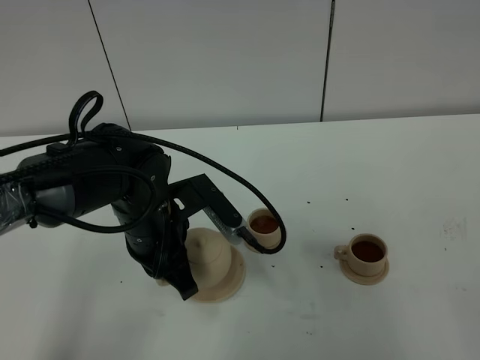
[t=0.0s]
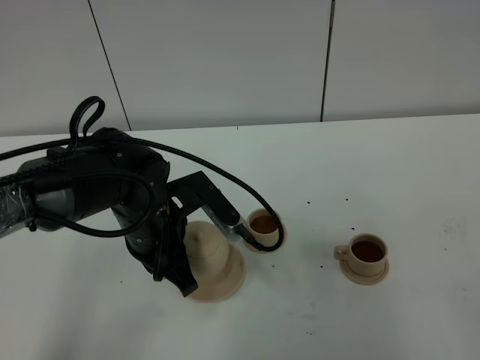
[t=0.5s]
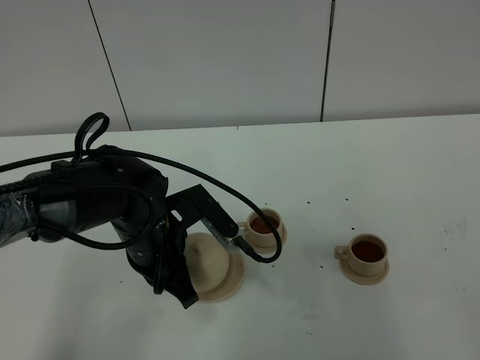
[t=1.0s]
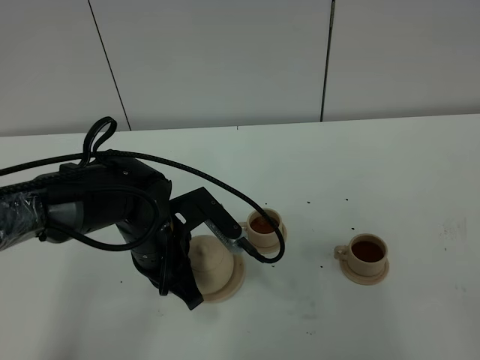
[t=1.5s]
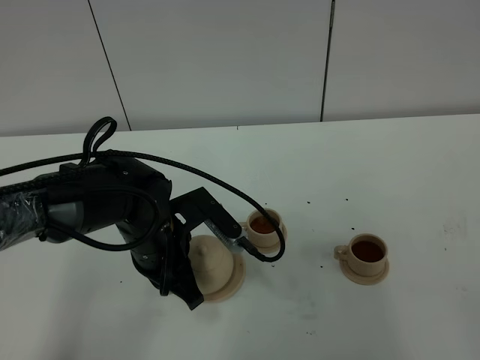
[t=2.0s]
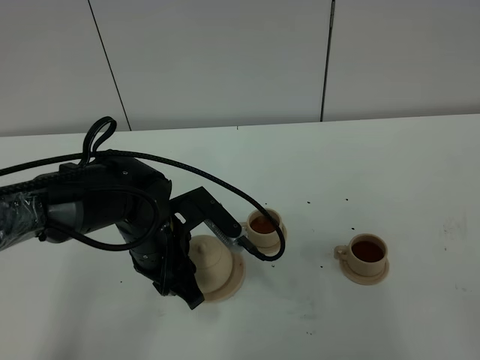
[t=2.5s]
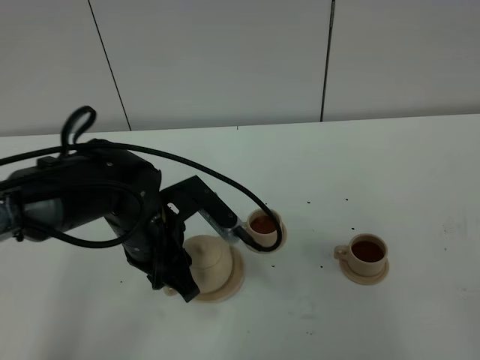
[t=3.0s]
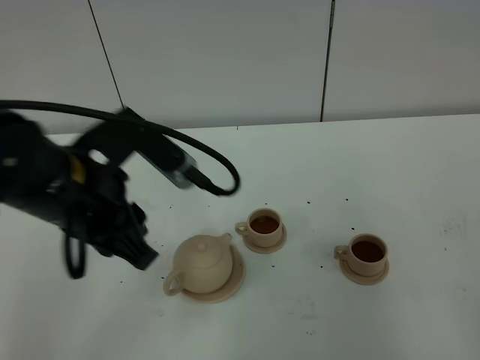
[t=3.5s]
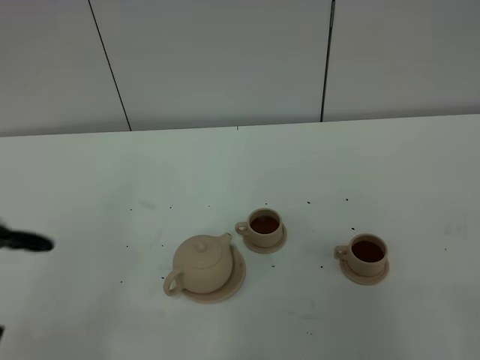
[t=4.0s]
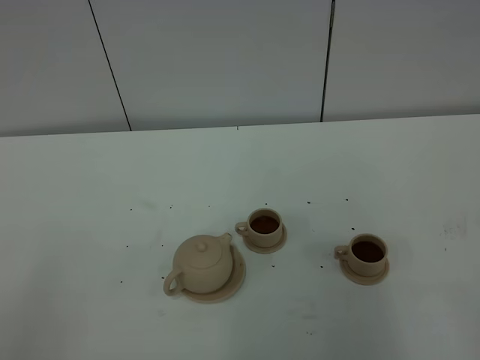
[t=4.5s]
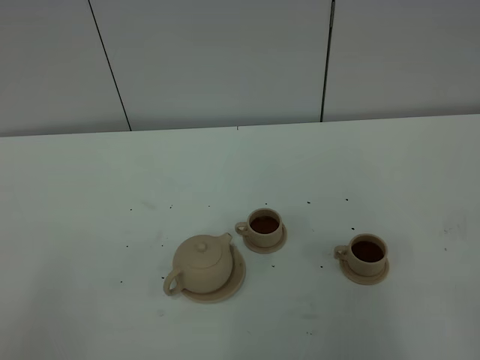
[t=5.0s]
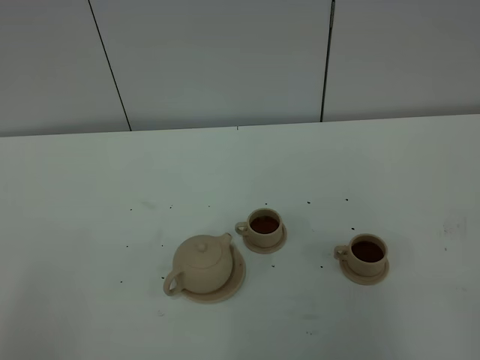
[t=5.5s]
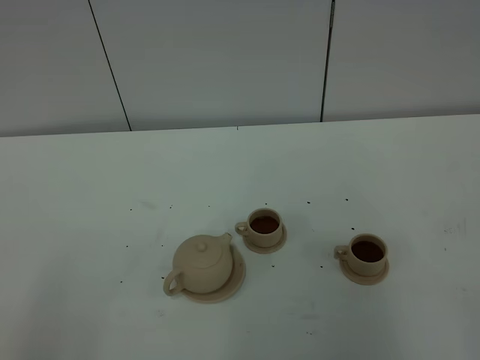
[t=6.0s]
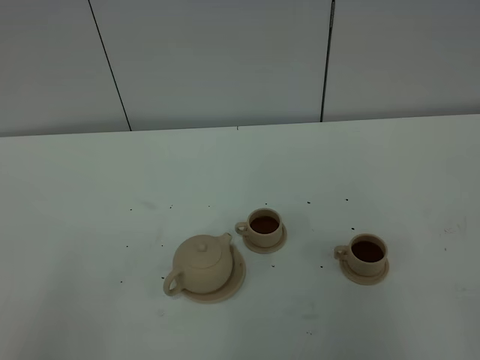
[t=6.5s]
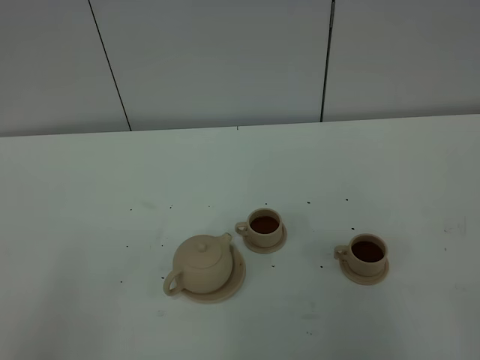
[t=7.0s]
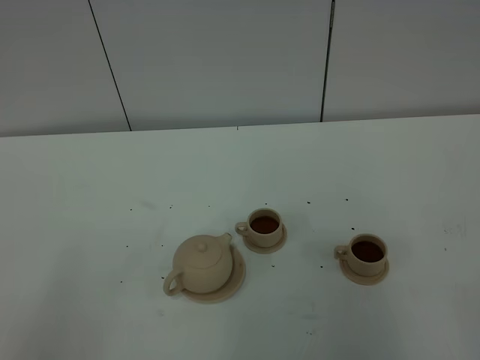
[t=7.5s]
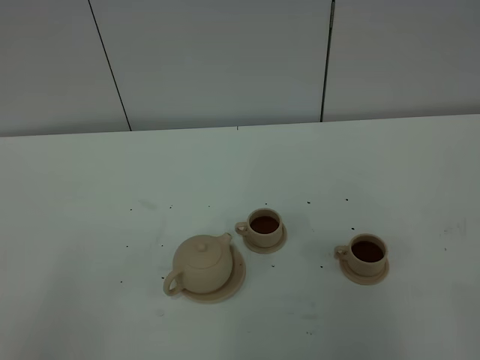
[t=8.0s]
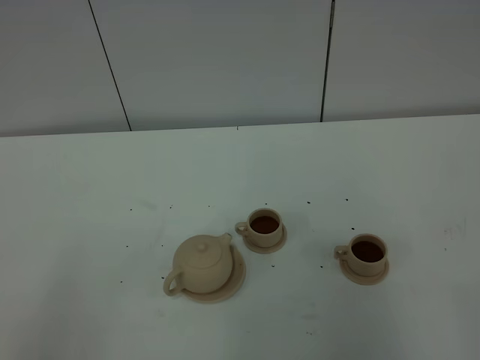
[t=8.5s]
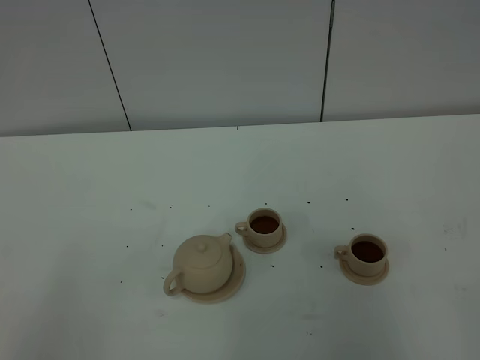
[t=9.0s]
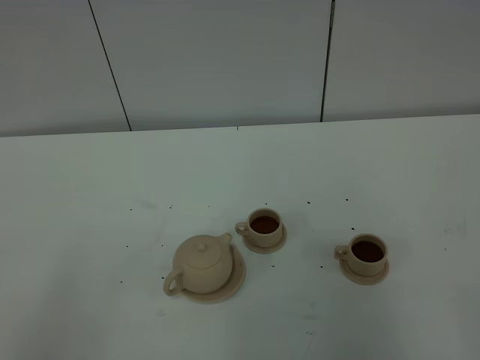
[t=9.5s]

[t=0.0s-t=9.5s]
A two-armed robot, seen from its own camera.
Task of the whole recording: grasp the brown teapot and pour the tea into the two brown teacups one by one, put the brown teapot back in its original place.
t=0.0s to t=2.0s: There are only small adjustments of the grippers.
t=2.0s to t=4.0s: The left gripper moves backward, upward and to the left, approximately 30 cm, and opens its fingers.
t=7.5s to t=9.5s: Neither gripper changes place.

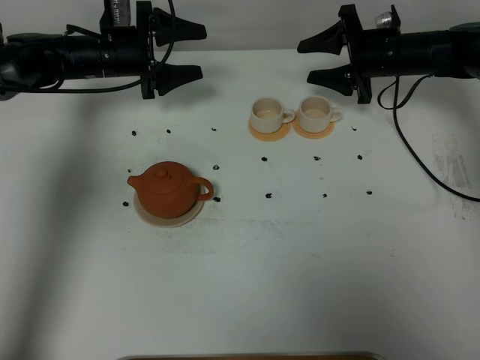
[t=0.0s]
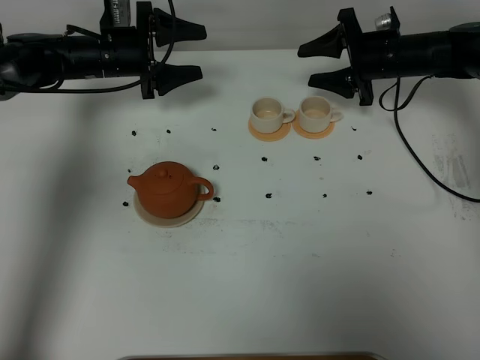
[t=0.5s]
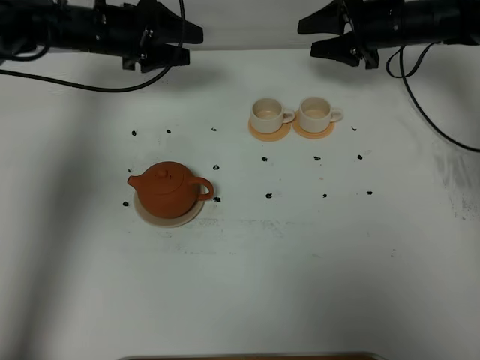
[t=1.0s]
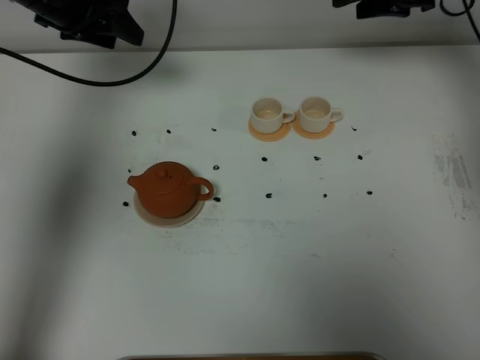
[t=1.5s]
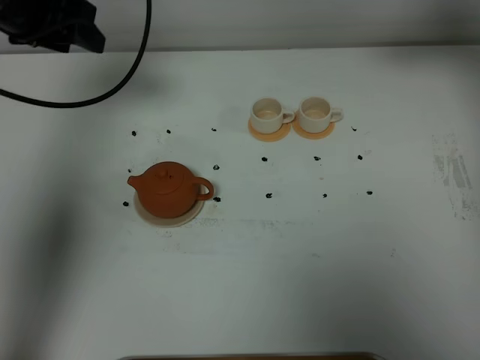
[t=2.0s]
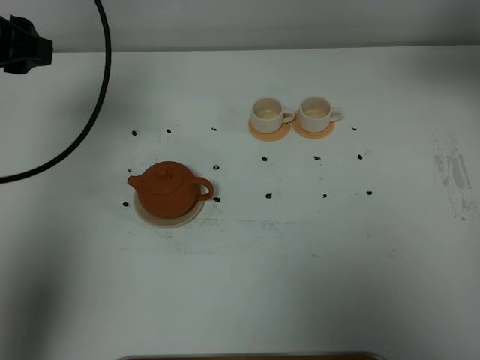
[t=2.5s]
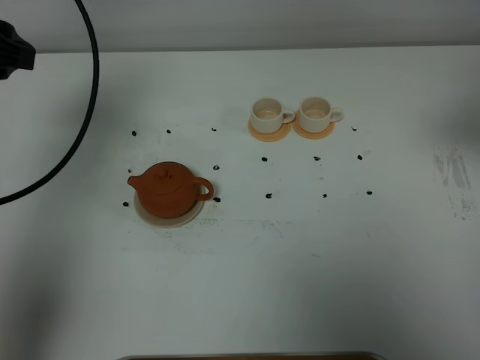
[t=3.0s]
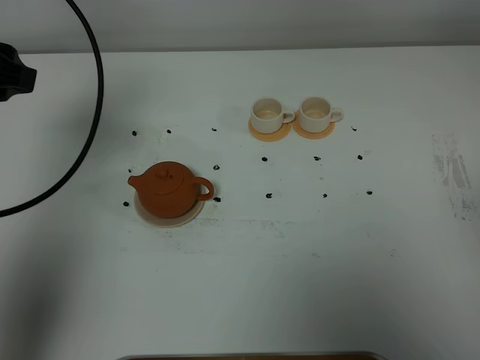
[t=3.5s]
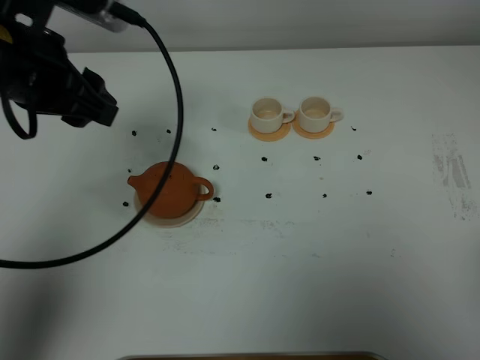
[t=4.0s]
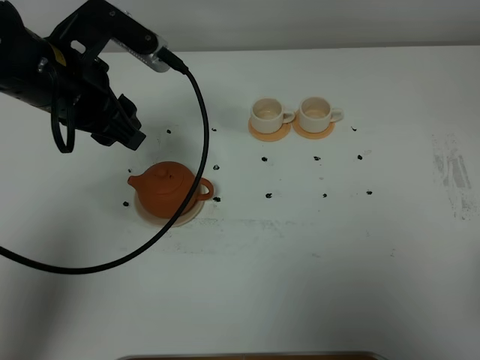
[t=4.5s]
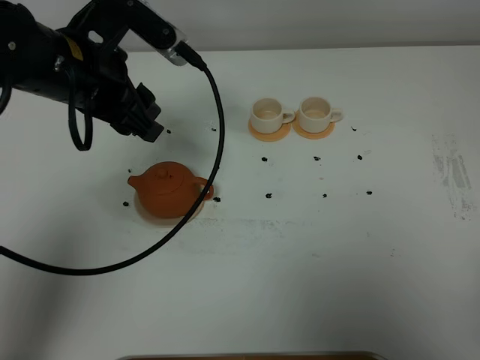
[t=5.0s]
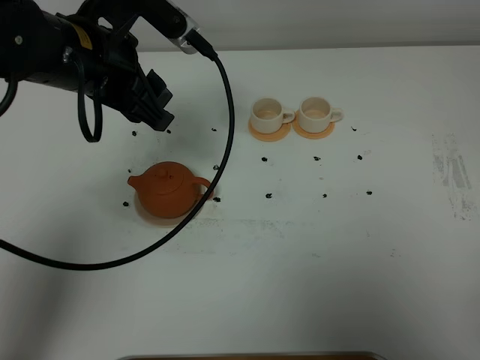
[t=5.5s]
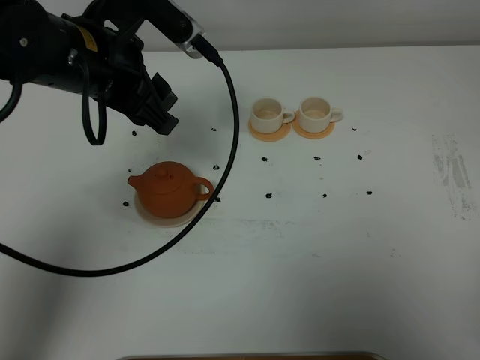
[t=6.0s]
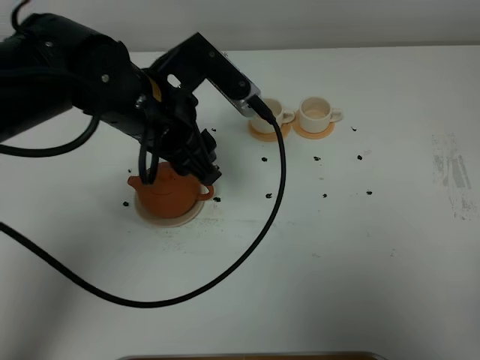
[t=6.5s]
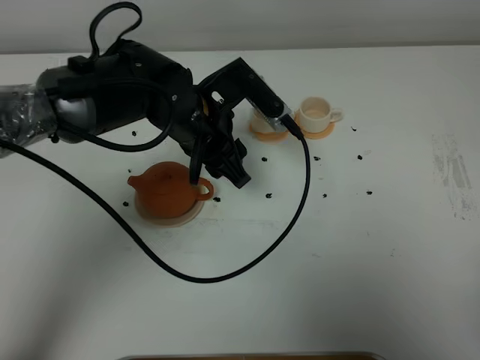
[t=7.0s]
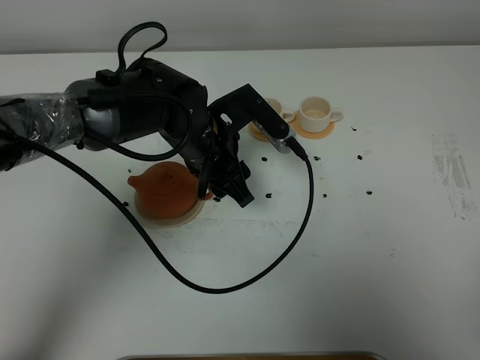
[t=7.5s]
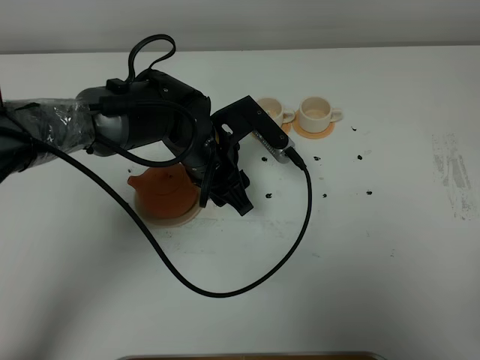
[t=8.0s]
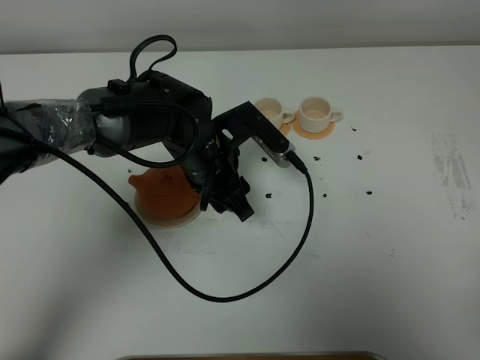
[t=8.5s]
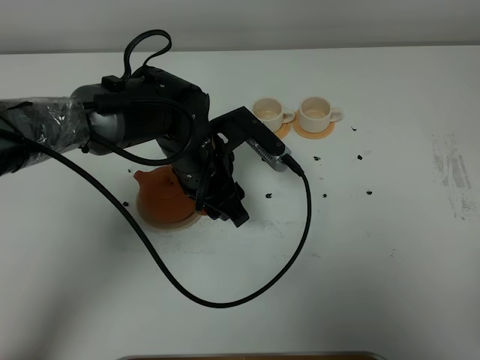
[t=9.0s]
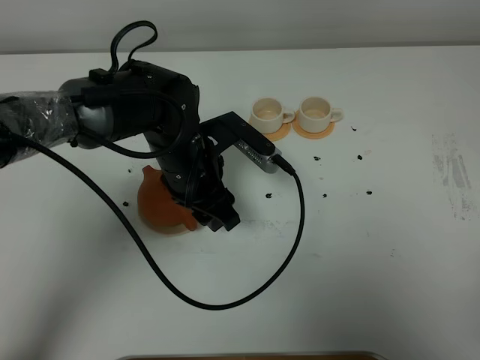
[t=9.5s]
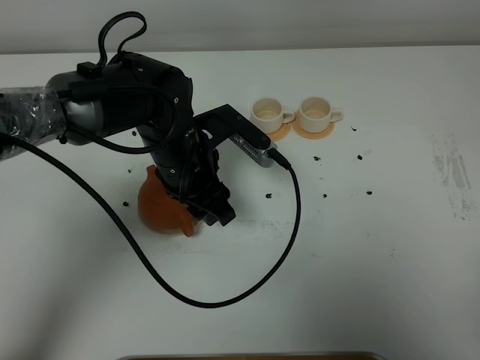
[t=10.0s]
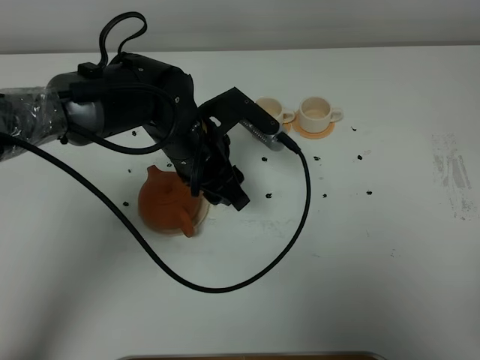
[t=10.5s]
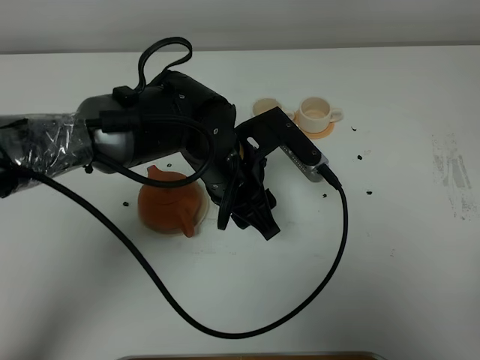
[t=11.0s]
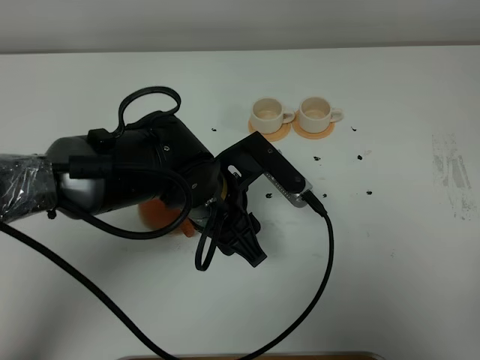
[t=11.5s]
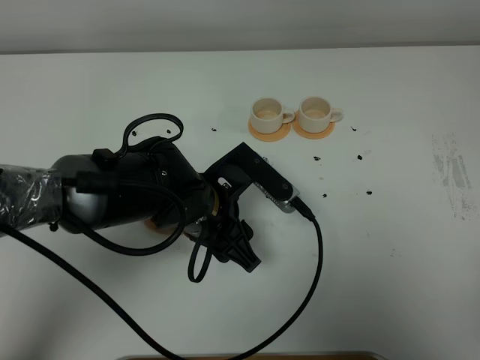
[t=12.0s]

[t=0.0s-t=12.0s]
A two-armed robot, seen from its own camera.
Task of the whole recording: grasp the brown teapot and pour the tea into the two white teacups one by one, put the brown teapot back in its original place.
t=0.0s to t=2.0s: The right gripper heads upward, covering roughly 20 cm; the left gripper travels upward and backward by approximately 20 cm.
t=2.0s to t=4.0s: The right gripper heads backward, covering roughly 50 cm, while the left gripper is displaced backward and to the right by about 15 cm.
t=4.0s to t=6.0s: The right gripper goes some 10 cm downward, while the left gripper goes roughly 5 cm to the right.
t=6.0s to t=8.0s: The left gripper shifts roughly 15 cm downward and to the right.
t=8.0s to t=10.0s: The grippers stay close to where they were, moving slightly.
t=10.0s to t=12.0s: The left gripper is displaced backward by some 5 cm.

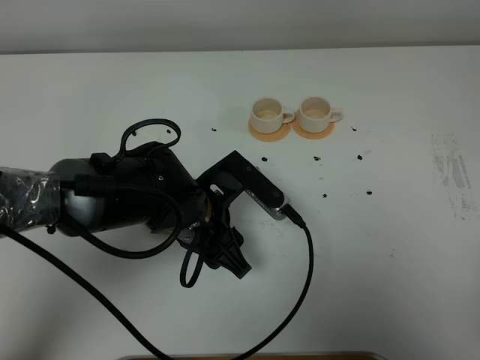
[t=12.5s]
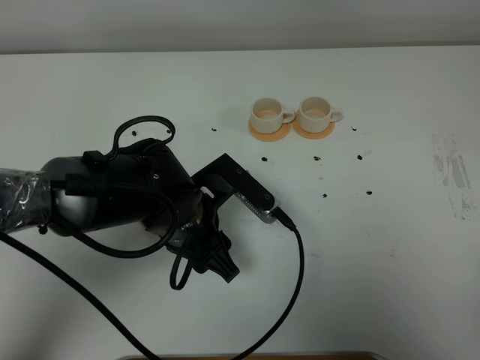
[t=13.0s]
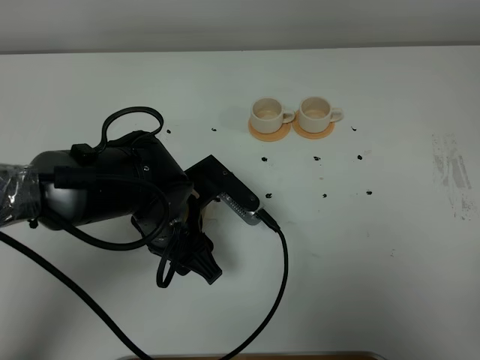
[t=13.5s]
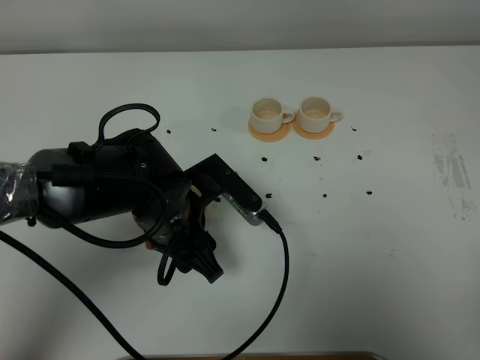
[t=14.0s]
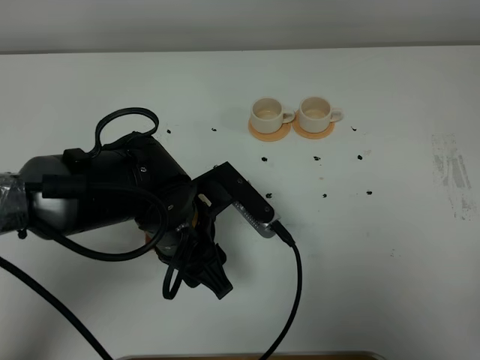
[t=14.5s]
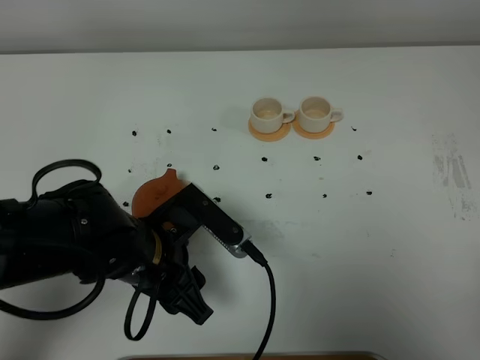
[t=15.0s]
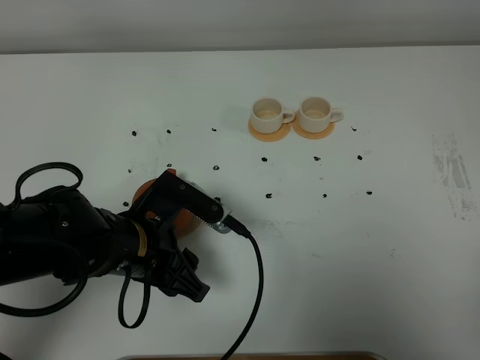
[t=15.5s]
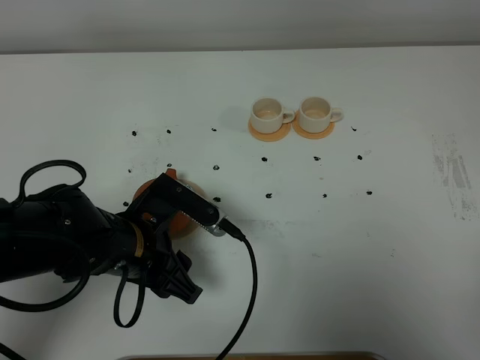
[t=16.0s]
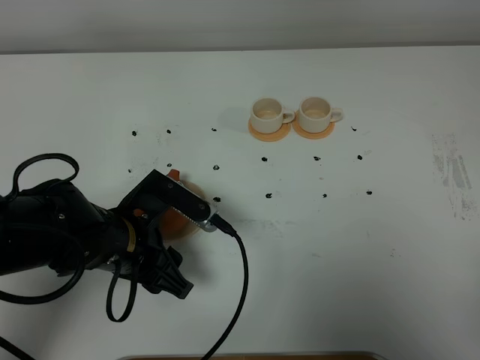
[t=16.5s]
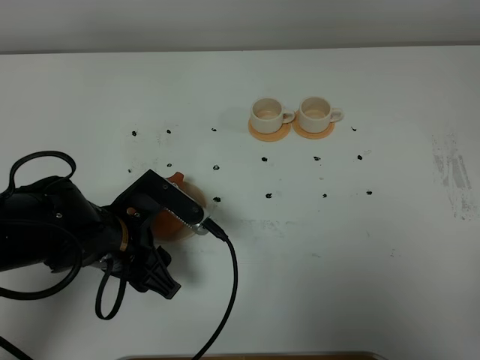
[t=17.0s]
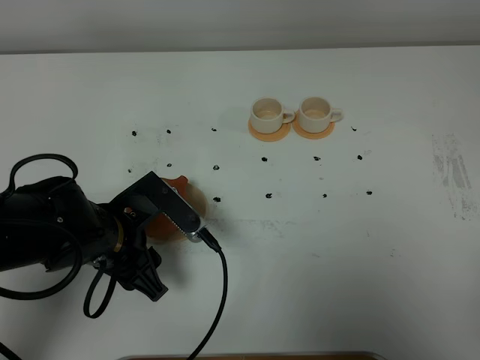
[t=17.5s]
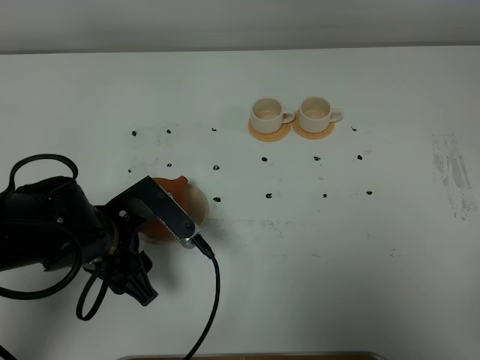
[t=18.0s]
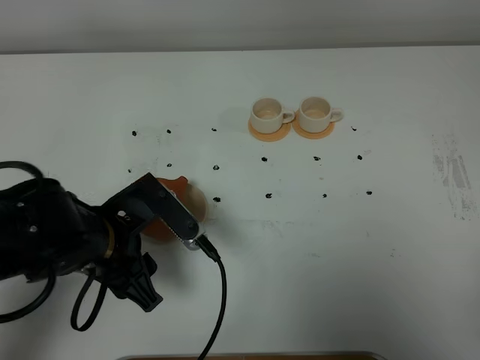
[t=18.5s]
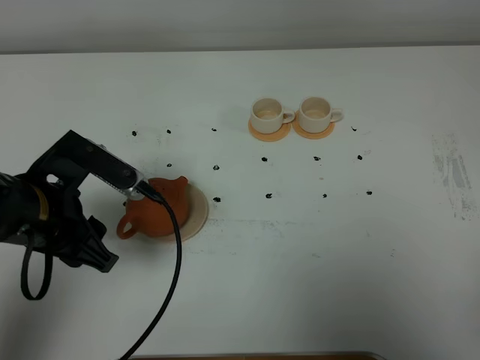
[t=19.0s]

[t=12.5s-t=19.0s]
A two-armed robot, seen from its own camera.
Task of the whole recording: grasp the brown teapot and pour the tea into the two white teacups one by one, put the brown teapot back in its original place.
t=12.5s to t=14.5s: There are only small adjustments of the grippers.
t=14.5s to t=17.0s: The left gripper moves to the left, approximately 5 cm.
t=17.0s to t=19.0s: The left gripper shifts about 10 cm upward and to the left.
